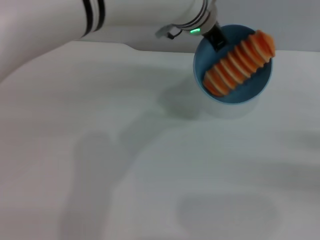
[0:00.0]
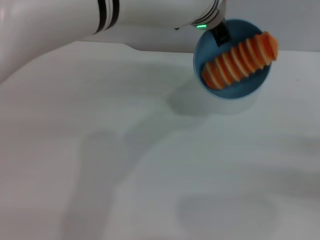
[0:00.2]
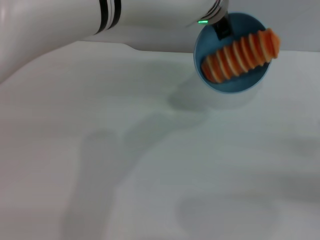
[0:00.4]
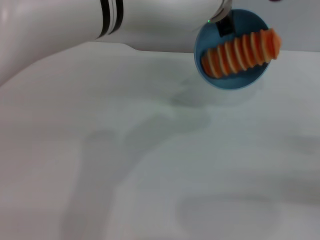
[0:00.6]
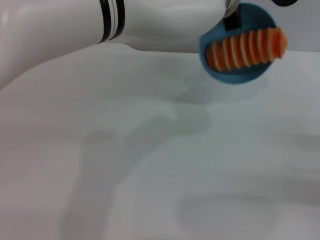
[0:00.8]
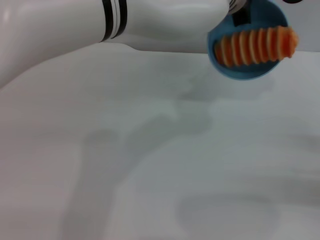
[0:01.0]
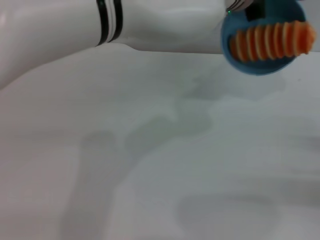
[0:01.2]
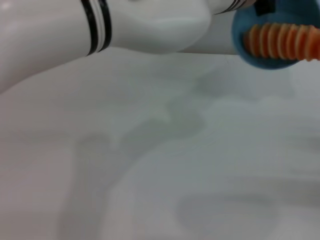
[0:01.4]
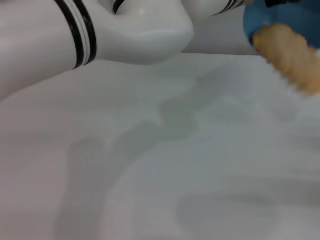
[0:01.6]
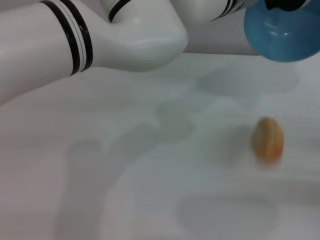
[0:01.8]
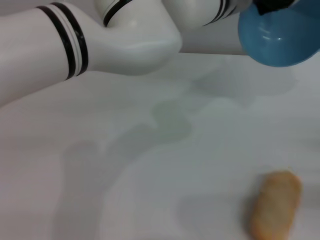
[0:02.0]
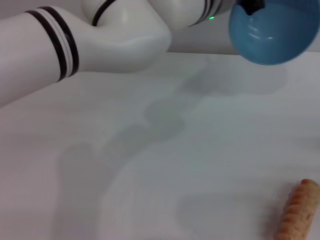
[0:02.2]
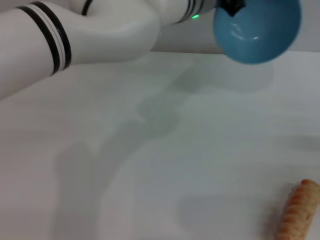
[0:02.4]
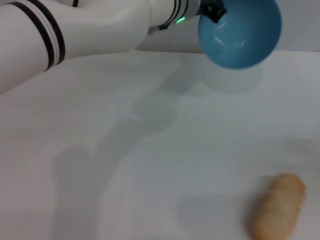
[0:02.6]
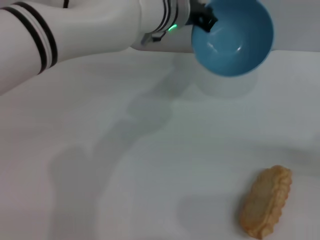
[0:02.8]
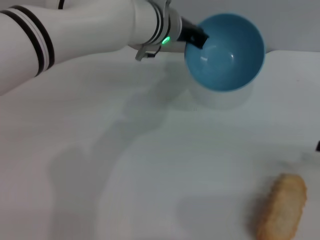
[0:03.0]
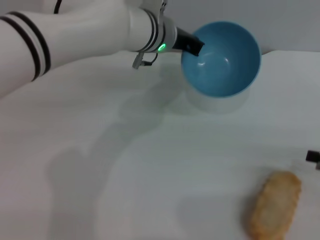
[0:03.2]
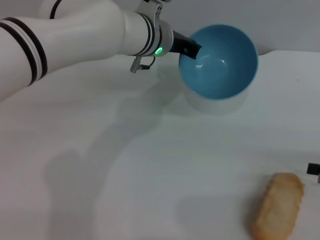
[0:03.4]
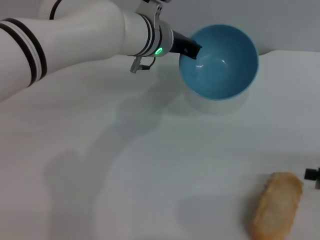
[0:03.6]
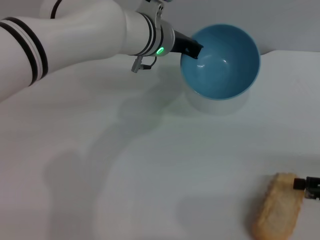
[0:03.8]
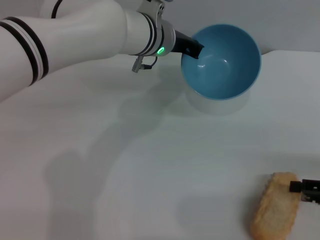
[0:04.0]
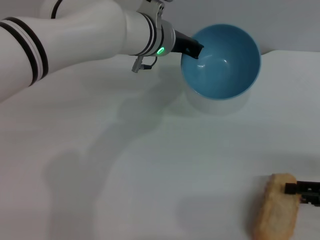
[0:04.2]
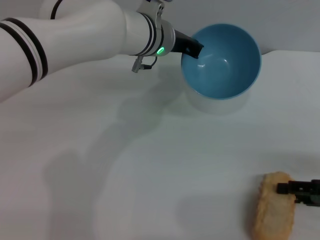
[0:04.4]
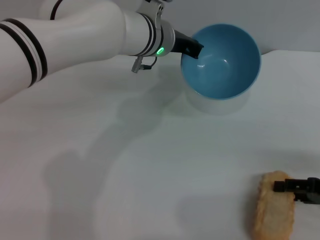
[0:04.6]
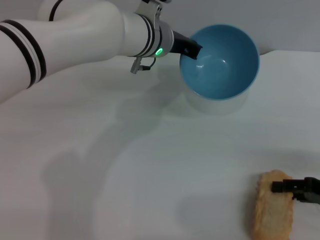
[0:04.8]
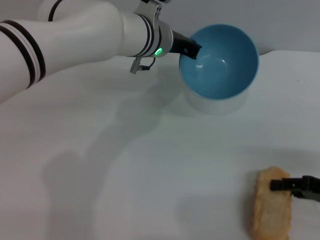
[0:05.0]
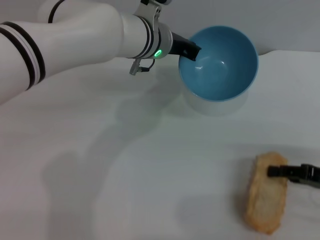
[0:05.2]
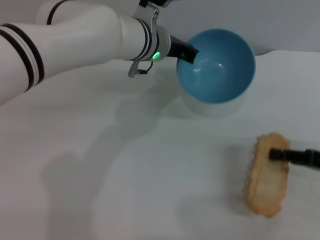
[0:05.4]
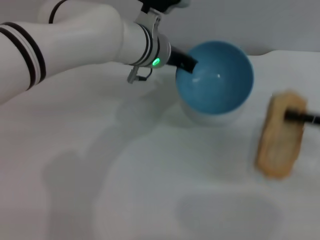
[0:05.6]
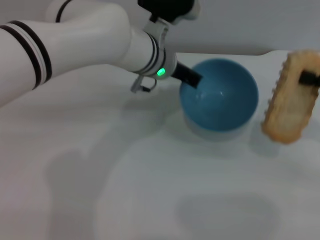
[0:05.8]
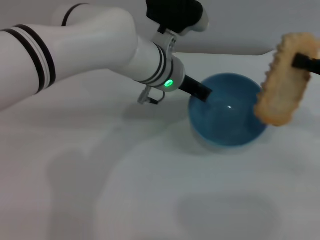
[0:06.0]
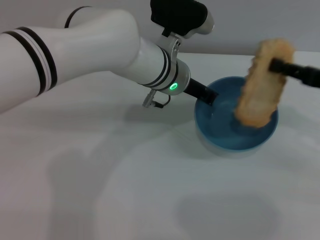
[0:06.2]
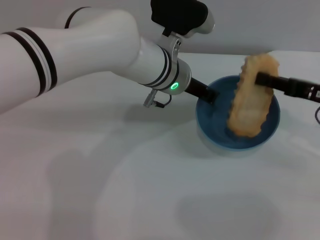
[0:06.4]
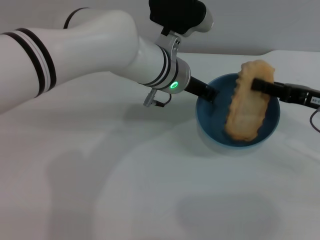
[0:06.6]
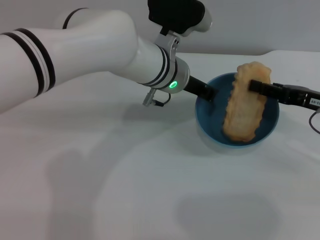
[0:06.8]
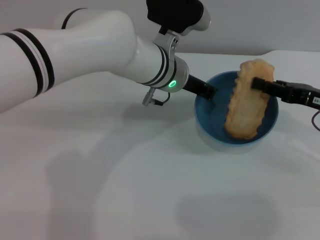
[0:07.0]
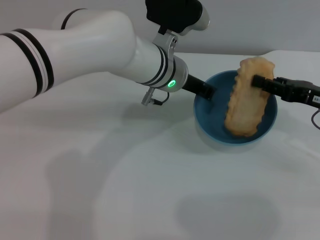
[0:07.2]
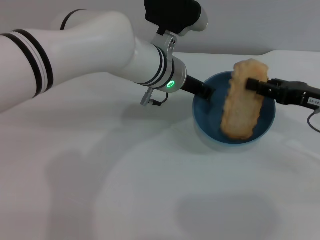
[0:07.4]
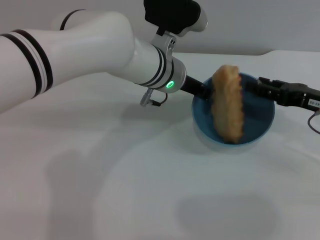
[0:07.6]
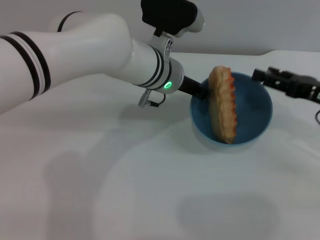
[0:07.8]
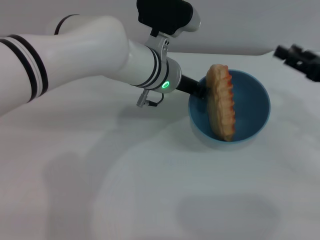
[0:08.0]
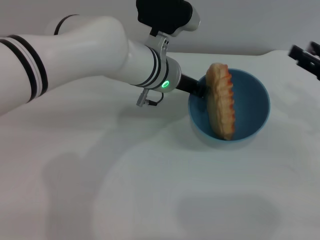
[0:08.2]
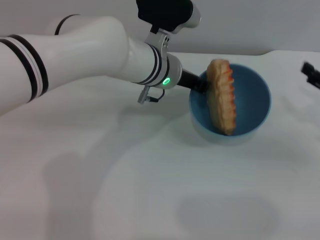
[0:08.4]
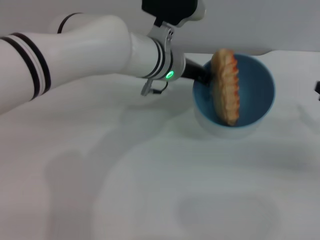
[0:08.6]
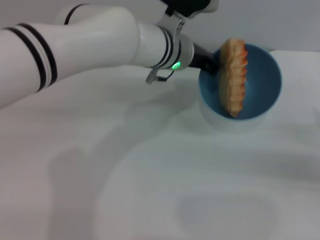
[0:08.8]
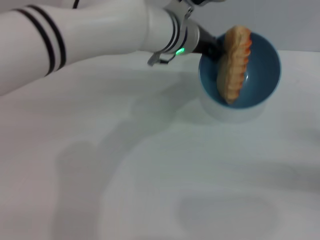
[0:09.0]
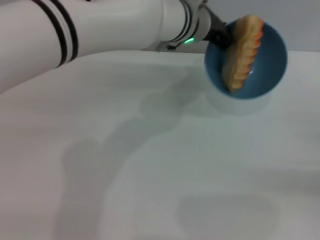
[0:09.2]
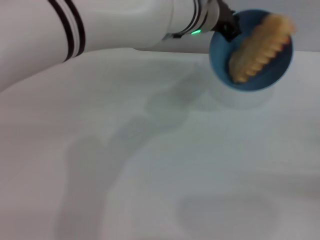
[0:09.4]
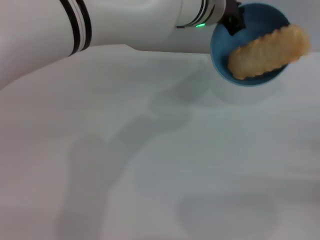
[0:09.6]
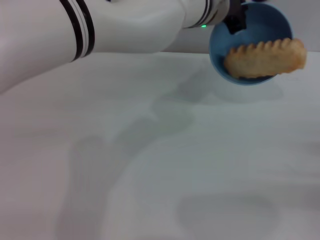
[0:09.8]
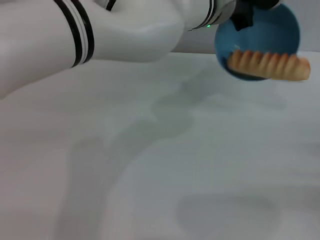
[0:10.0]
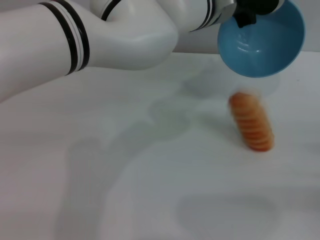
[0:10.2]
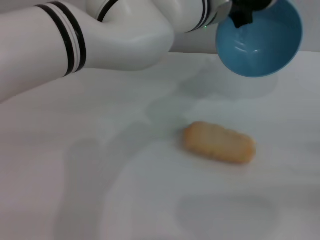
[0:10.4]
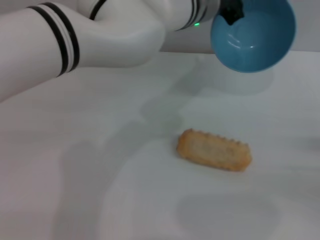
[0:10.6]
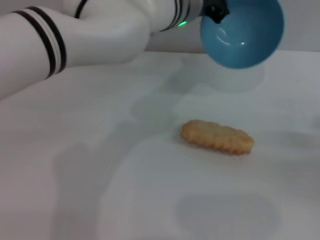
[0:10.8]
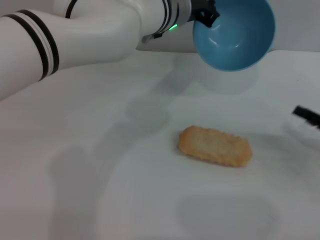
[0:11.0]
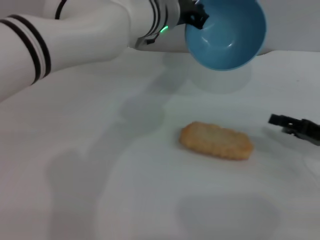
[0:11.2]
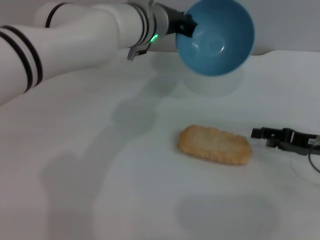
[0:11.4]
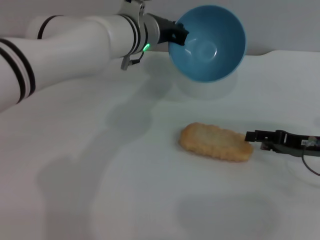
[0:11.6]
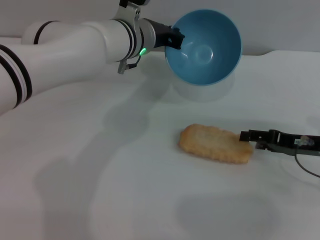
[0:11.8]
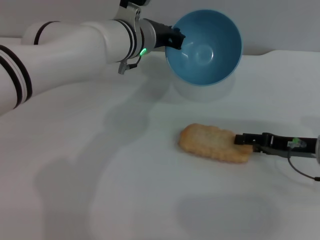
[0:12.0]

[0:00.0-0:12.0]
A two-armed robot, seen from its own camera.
Task of the whole recording: put the bread into the blue bowl and pour it out repeatedly.
Step, 0:00.0 to 0:02.0: Pour the bread out of the bowl.
Step, 0:02.2 to 0:05.4: Pick up the bread with the right gripper.
Step, 0:05.6 to 0:07.8: Place the bread into the bowl.
Step, 0:08.2 to 0:11.0: Pour the bread out of the bowl.
0:01.6 to 0:03.0: The left gripper shifts some 10 cm to the left and downward. The right gripper changes place by approximately 5 cm.
0:03.0 to 0:04.4: The right gripper changes place by roughly 5 cm.
0:04.4 to 0:06.0: The right gripper is displaced upward and forward by some 10 cm, and closes up.
0:06.0 to 0:07.6: The right gripper changes place by some 5 cm.
0:07.6 to 0:09.0: The right gripper travels to the right, backward and downward by roughly 15 cm, and opens; the left gripper shifts by roughly 5 cm.
0:10.4 to 0:12.0: The left gripper moves to the left and downward, some 10 cm, while the right gripper moves to the left and forward, some 15 cm.

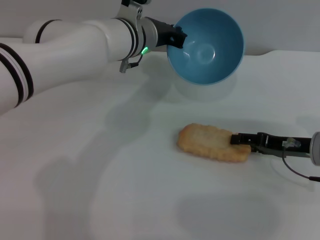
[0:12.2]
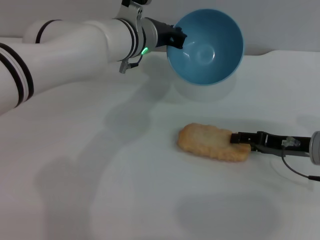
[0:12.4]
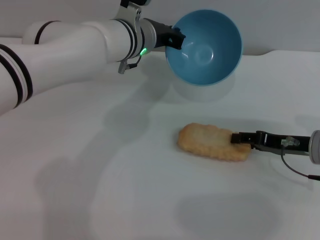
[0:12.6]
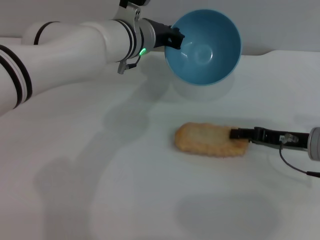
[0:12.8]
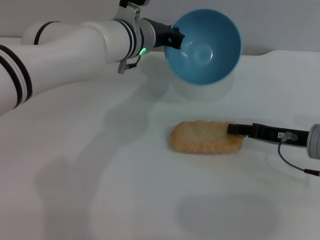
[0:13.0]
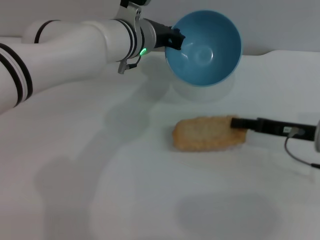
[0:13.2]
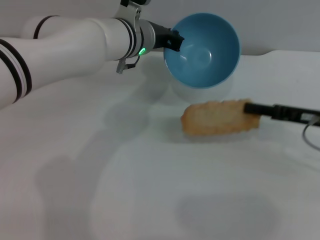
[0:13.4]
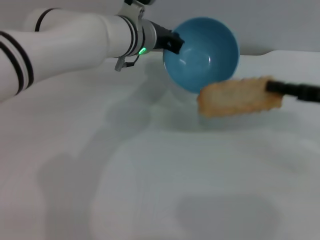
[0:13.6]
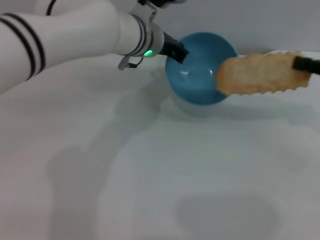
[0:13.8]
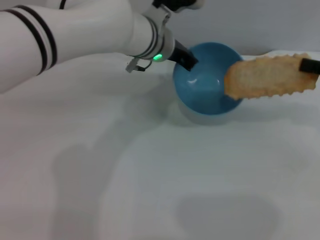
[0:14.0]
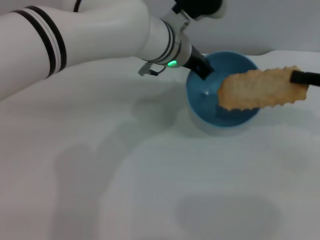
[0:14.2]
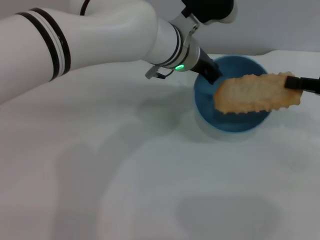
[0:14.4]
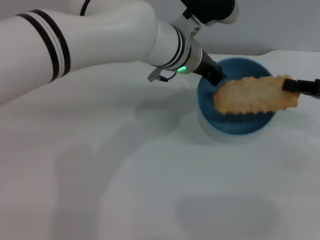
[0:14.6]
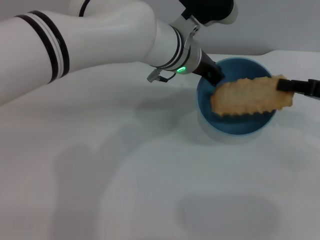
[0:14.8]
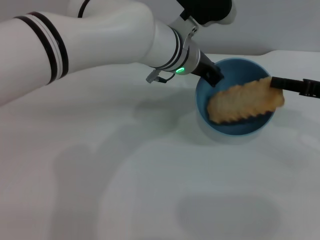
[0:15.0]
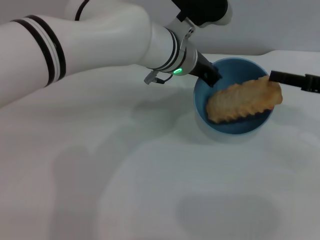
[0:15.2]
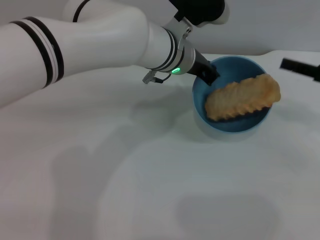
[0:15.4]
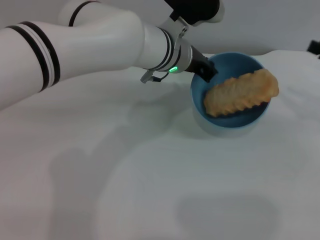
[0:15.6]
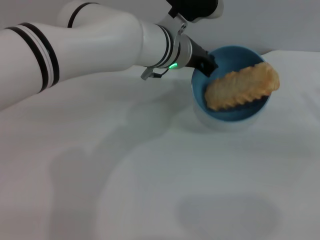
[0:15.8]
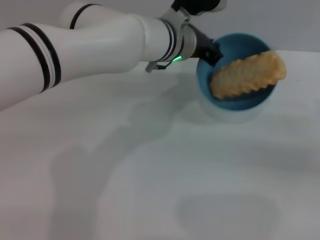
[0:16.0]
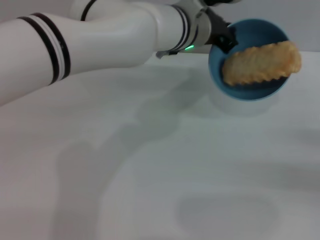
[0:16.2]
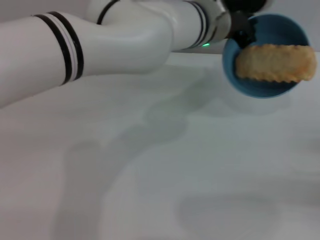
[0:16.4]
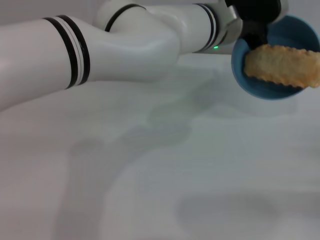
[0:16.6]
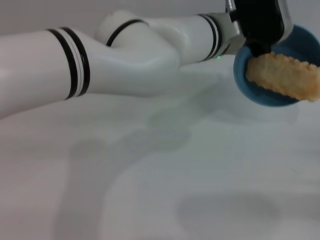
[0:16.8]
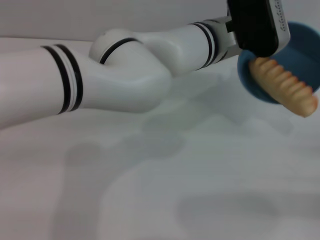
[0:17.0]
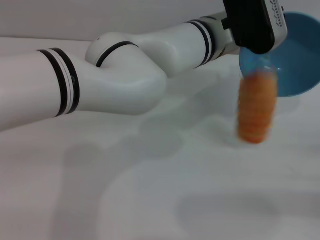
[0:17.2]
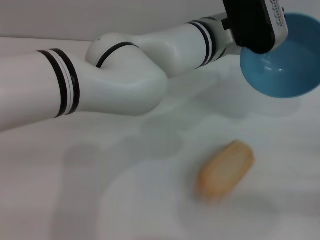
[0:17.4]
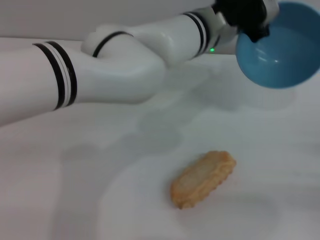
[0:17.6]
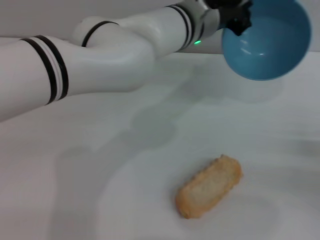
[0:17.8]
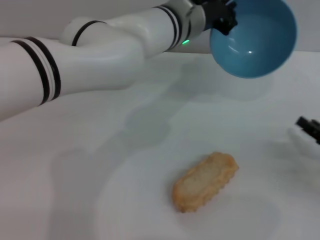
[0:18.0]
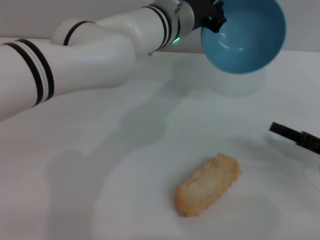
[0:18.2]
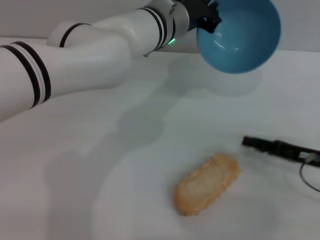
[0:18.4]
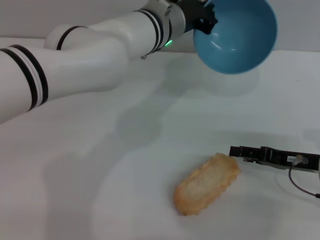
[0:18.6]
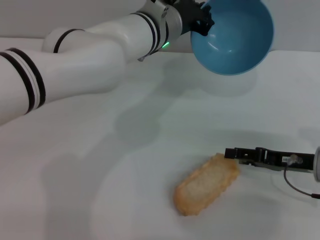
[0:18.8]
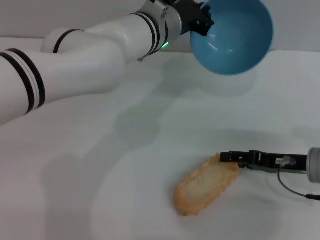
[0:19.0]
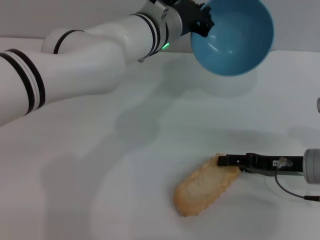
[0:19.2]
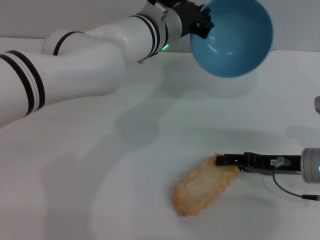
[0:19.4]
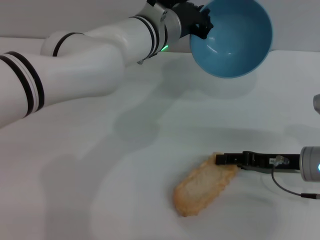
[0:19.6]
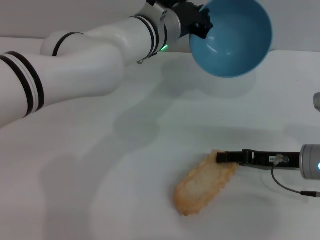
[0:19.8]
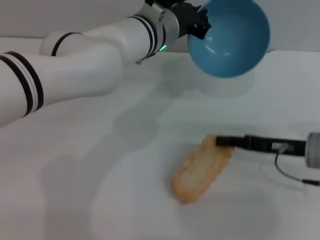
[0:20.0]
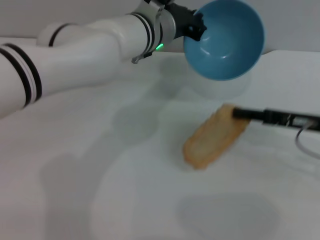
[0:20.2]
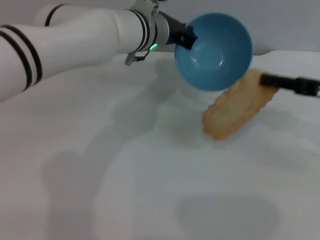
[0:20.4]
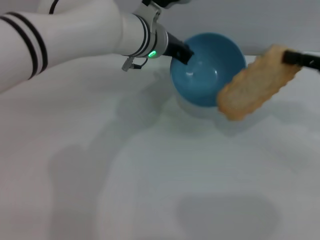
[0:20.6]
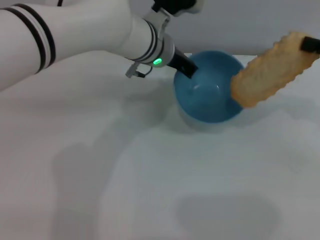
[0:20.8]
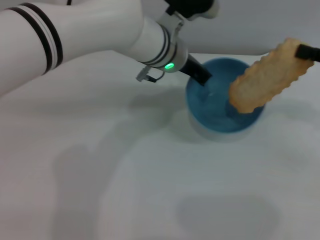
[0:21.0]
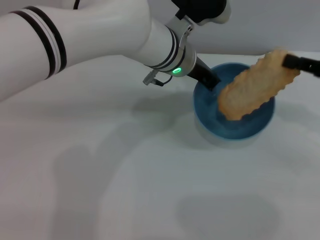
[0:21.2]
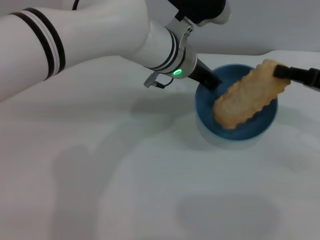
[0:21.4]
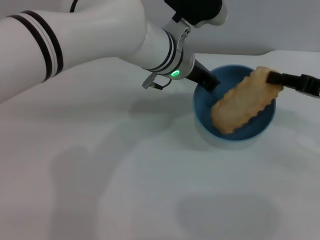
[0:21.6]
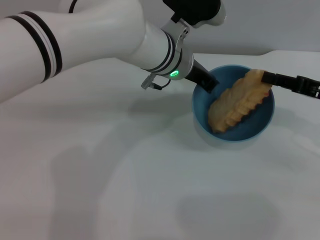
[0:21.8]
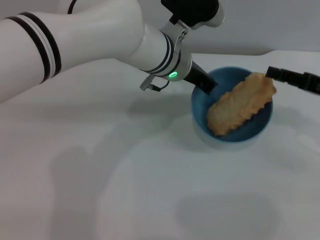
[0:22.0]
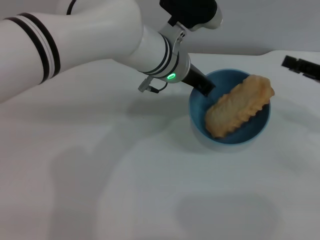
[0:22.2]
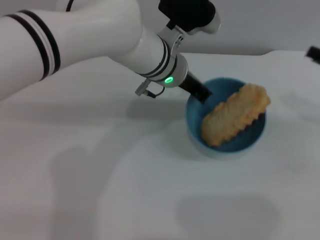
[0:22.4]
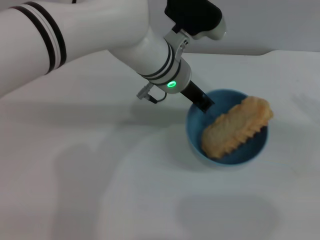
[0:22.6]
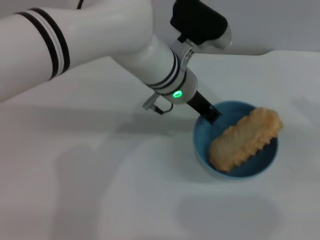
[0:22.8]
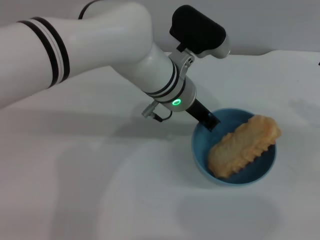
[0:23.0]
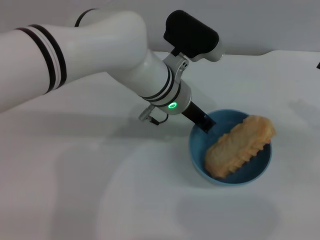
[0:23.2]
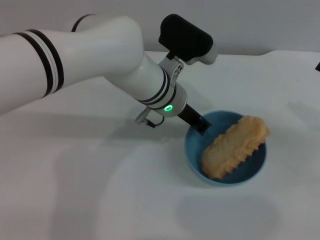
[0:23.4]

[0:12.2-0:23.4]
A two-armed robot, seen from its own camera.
Task of the whole recording: put the bread into the blue bowl and pour it out repeatedly.
Step, 0:12.2 to 0:13.6: Pick up the bread with the right gripper.
Step, 0:13.8 to 0:15.4: Place the bread into the bowl.
Step, 0:15.6 to 0:17.4: Pour the bread out of the bowl.
Step, 0:17.6 to 0:20.2: Pick up the bread with the right gripper.
Step, 0:20.4 to 0:22.2: Place the bread into the bowl.
0:12.2 to 0:13.8: The right gripper moves upward and to the right, approximately 15 cm, and closes.
0:13.8 to 0:15.4: The left gripper moves roughly 5 cm.
0:15.4 to 0:17.0: The left gripper moves to the right, approximately 5 cm. Meanwhile the right gripper shifts some 15 cm backward, downward and to the right.
0:17.0 to 0:18.6: The left gripper goes some 5 cm to the left; the right gripper is displaced to the left and forward by approximately 15 cm, and opens its fingers.
0:18.6 to 0:20.2: The right gripper goes approximately 5 cm upward, and closes up.
0:20.2 to 0:21.8: The right gripper moves roughly 10 cm upward and comes back, and closes its fingers.
0:21.8 to 0:23.4: The right gripper travels to the right by approximately 5 cm, and opens up.
